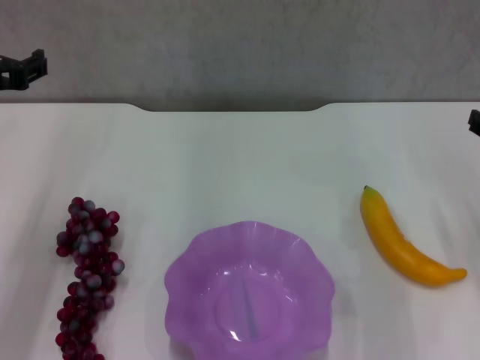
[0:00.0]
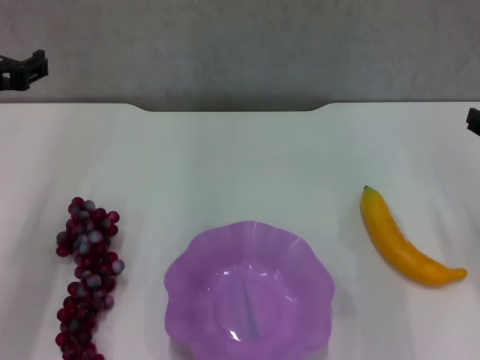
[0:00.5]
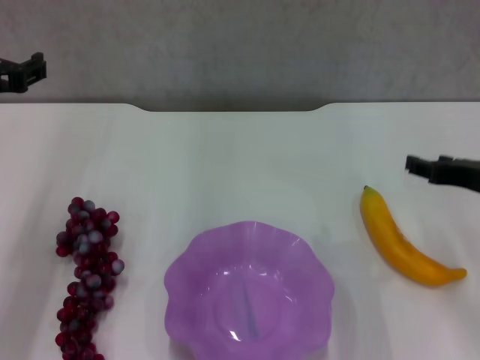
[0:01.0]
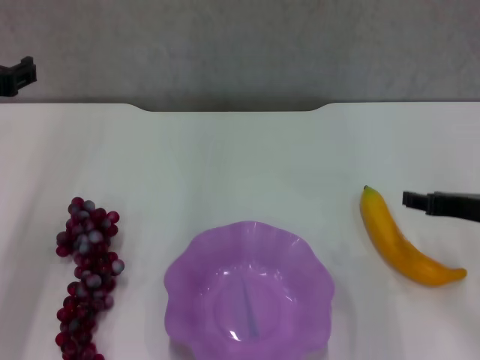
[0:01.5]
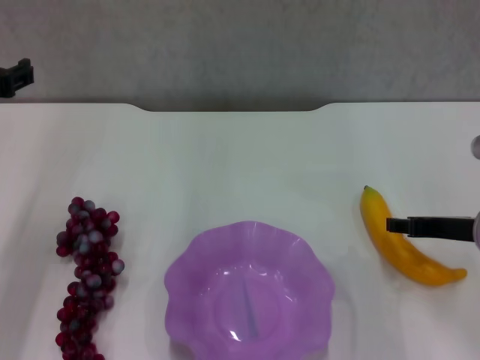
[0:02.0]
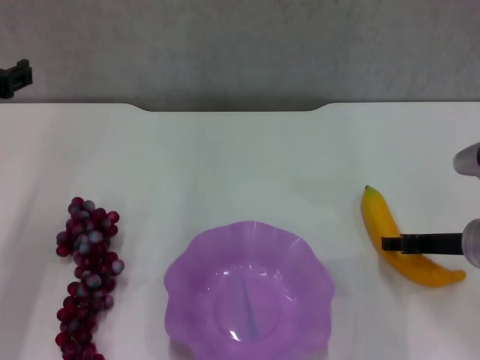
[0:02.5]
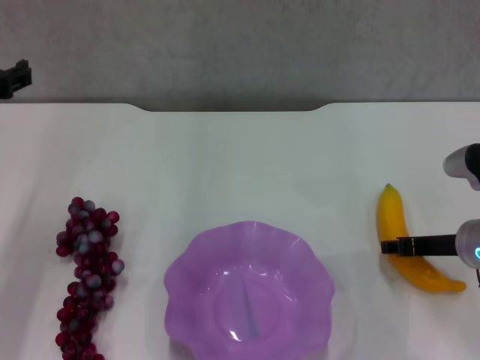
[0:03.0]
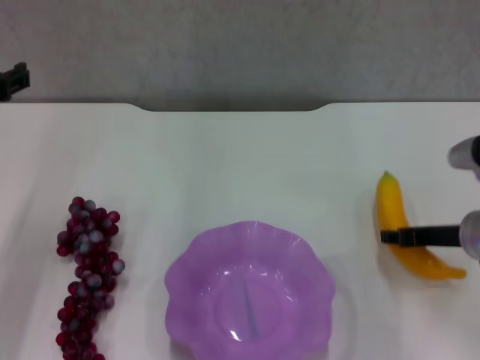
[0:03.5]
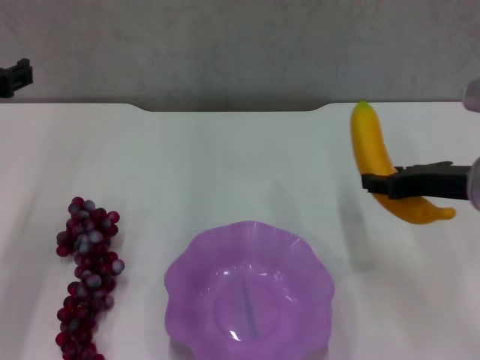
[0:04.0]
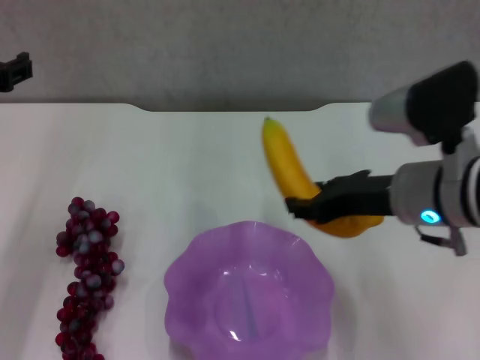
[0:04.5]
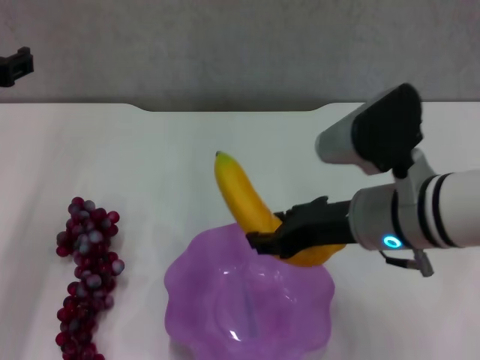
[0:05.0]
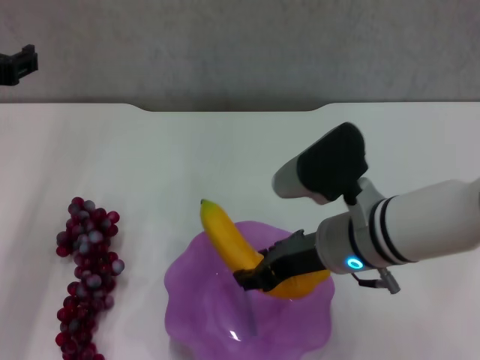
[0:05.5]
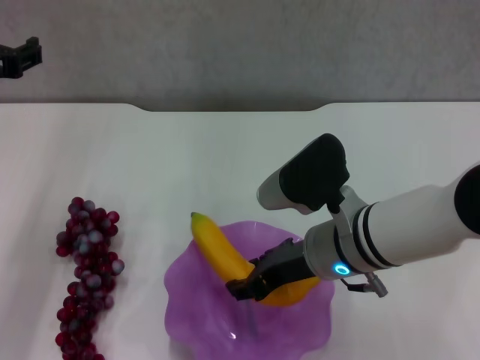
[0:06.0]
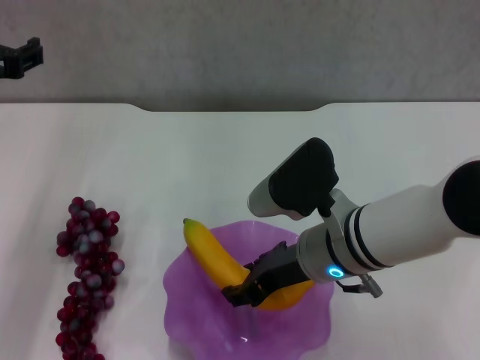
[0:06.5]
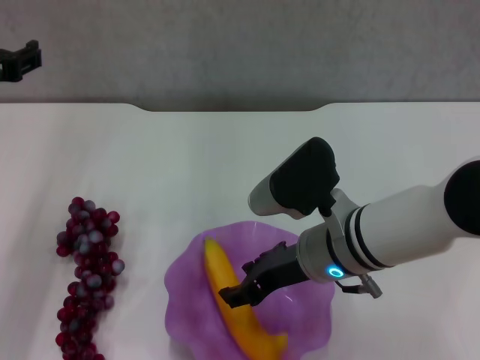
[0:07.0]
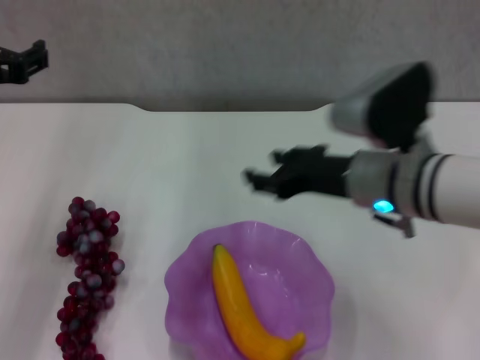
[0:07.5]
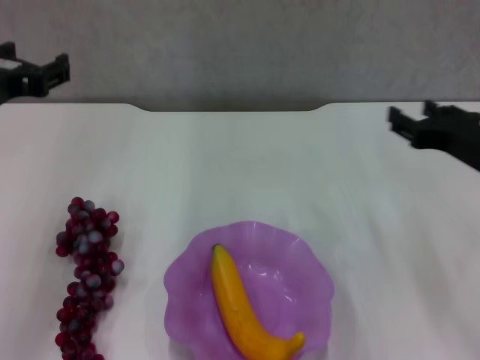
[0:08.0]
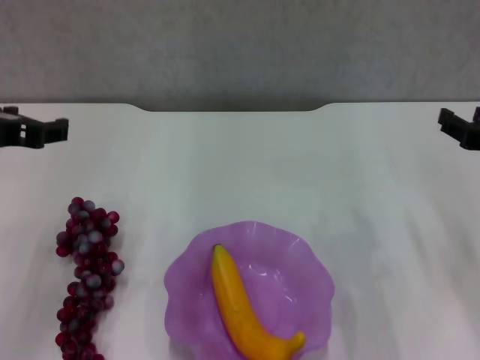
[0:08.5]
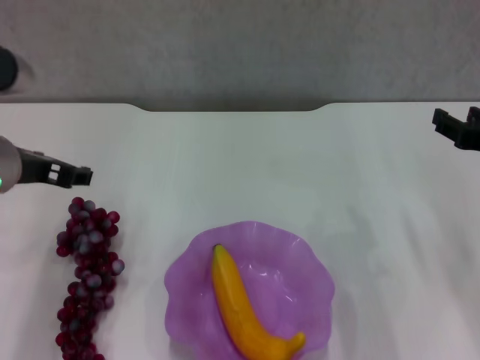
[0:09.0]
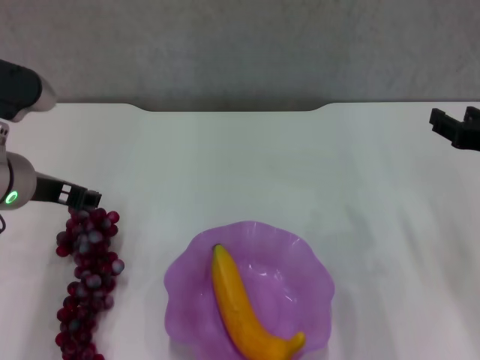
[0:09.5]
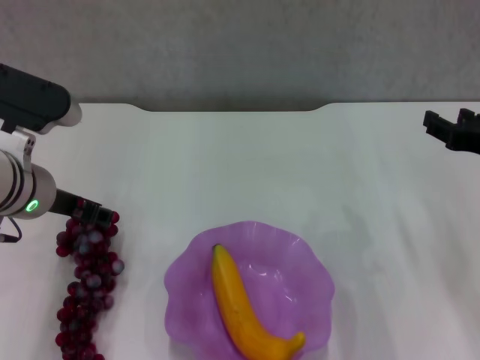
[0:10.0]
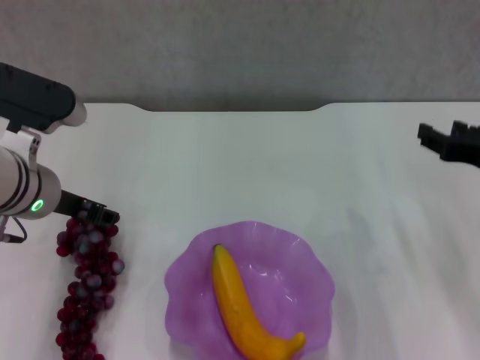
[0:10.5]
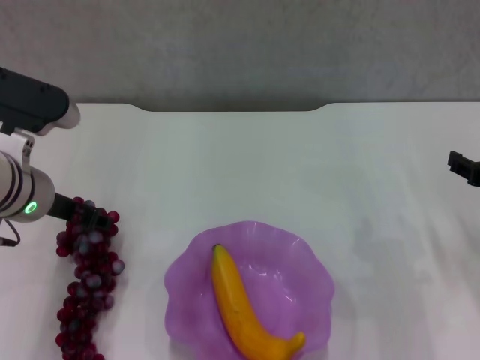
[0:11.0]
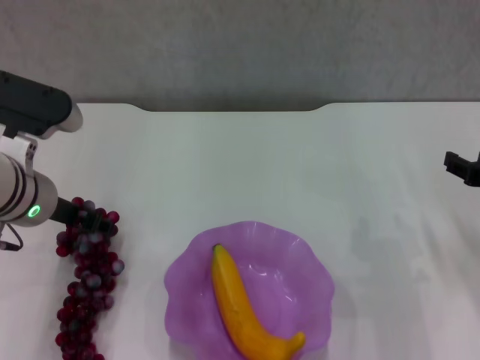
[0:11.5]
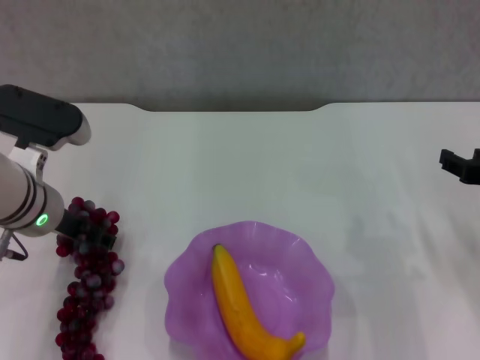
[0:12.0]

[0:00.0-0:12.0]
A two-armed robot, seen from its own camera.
Step, 0:00.0 to 0:03.0: Grasp the banana with right gripper.
Step, 0:03.5 to 0:07.0: Place the banana in the purple plate with right gripper.
0:00.0 to 0:02.0: The right gripper goes about 5 cm downward.
0:02.0 to 0:04.0: The right gripper moves upward, about 5 cm, and closes its fingers.
0:04.0 to 0:06.0: The right gripper goes approximately 15 cm to the left.
0:06.0 to 0:08.0: The right gripper heads to the right, covering approximately 15 cm, and opens up.
0:08.0 to 0:10.0: The left gripper goes approximately 5 cm downward.
0:10.0 to 0:12.0: The grippers stay close to where they were, moving slightly.

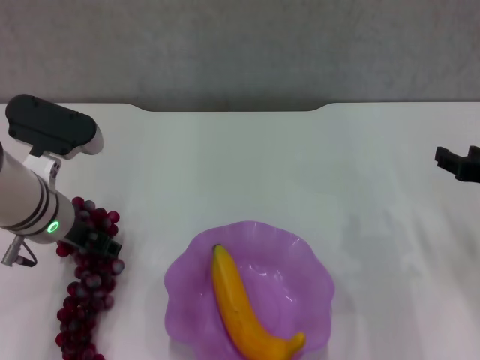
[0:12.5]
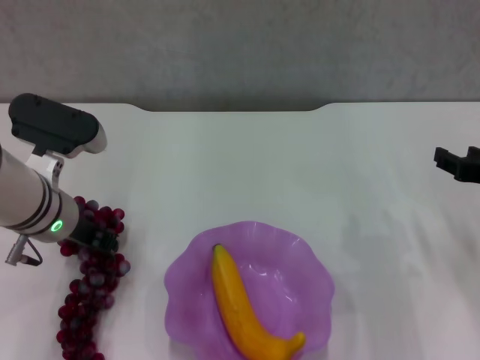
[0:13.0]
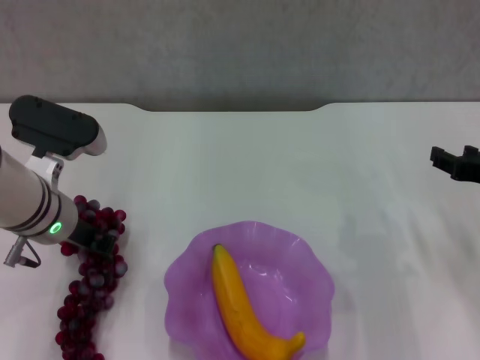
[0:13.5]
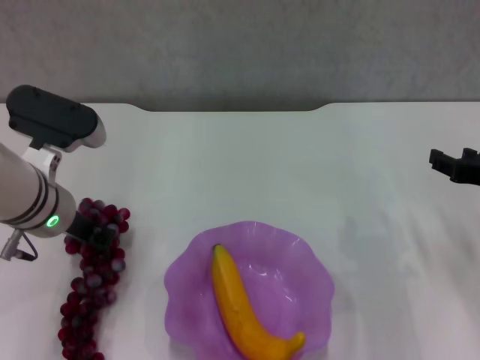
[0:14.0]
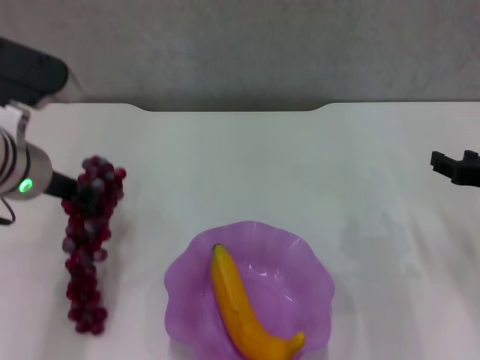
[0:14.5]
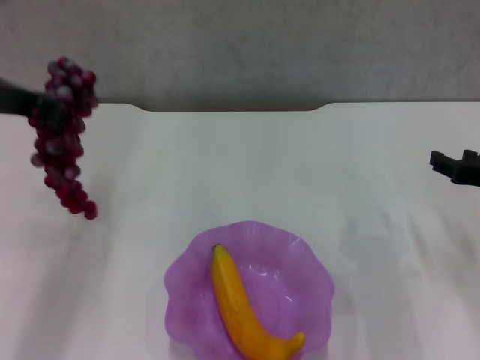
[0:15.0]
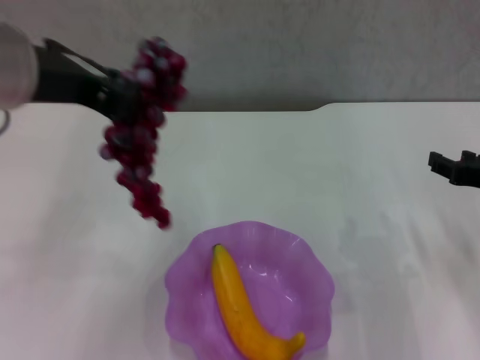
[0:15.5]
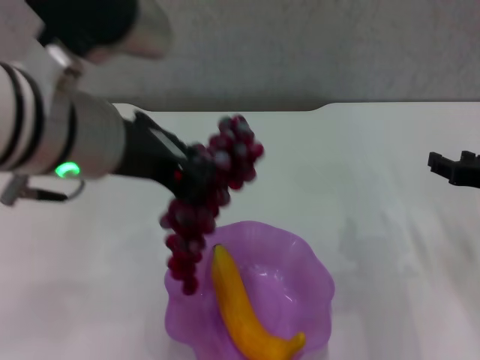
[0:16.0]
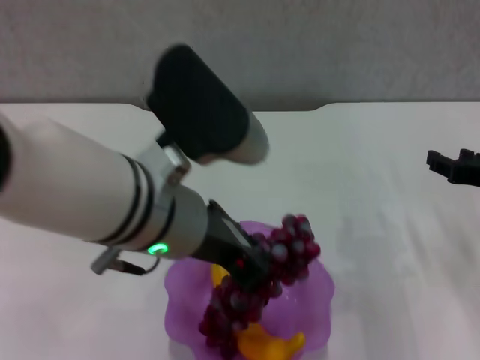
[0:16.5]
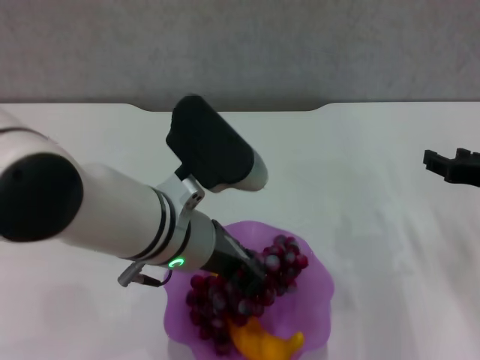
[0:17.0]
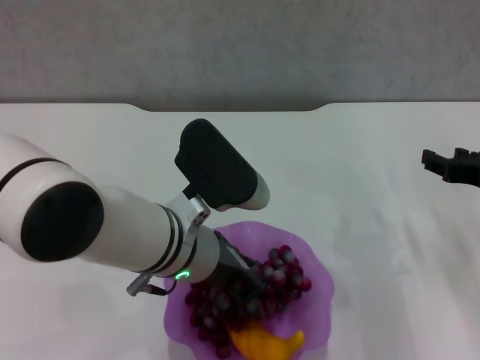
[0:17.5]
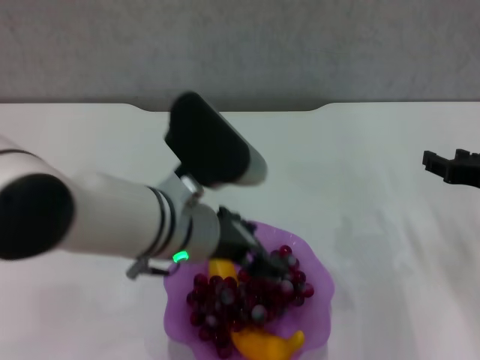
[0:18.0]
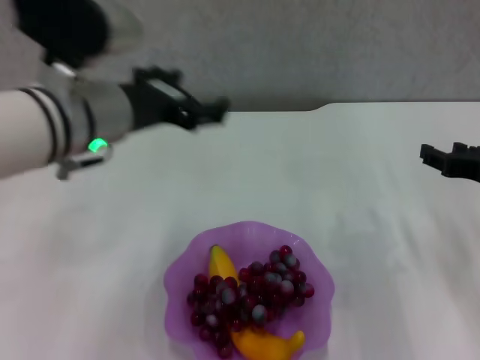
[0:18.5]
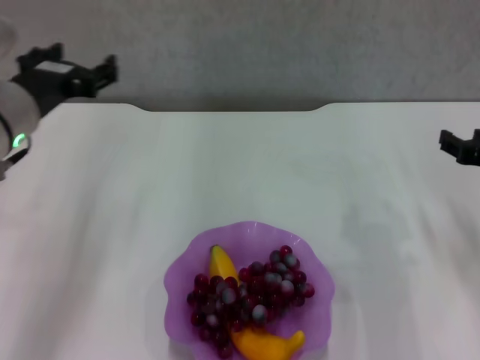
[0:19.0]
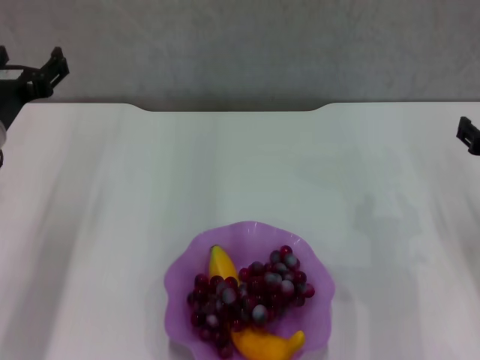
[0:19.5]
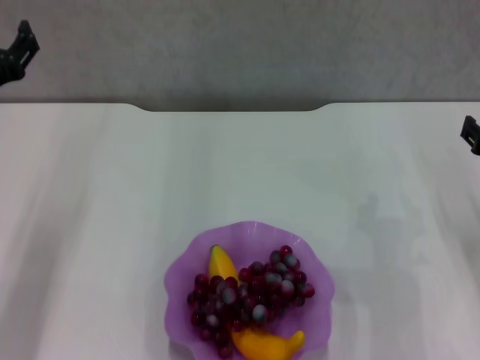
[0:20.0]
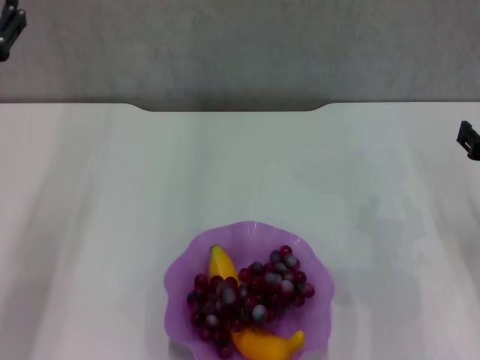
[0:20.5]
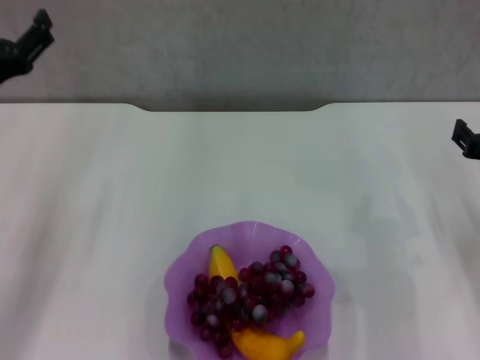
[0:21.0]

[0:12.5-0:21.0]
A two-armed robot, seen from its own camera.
Step, 0:13.5 to 0:17.5: Place the grape in the purple plate with left gripper.
0:12.5 to 0:14.5: The left gripper heads upward, covering some 5 cm, and closes its fingers.
0:14.5 to 0:16.5: The left gripper shifts approximately 15 cm to the right and backward.
0:16.5 to 0:19.0: The left gripper goes roughly 15 cm to the left and forward, and opens.
0:19.0 to 0:21.0: The left gripper goes about 5 cm to the left.
